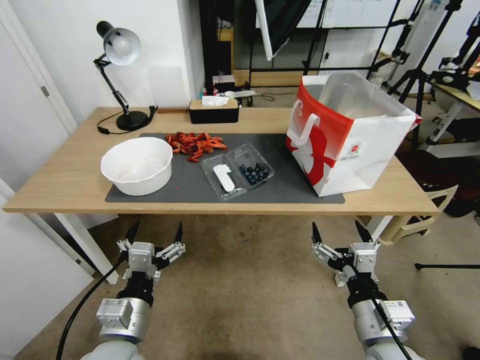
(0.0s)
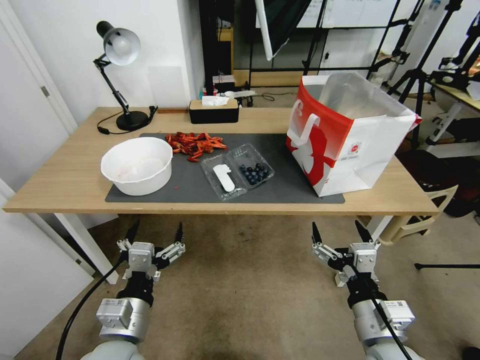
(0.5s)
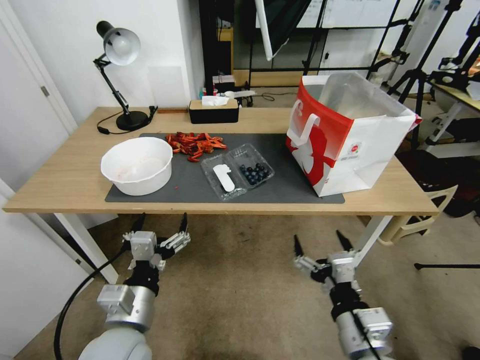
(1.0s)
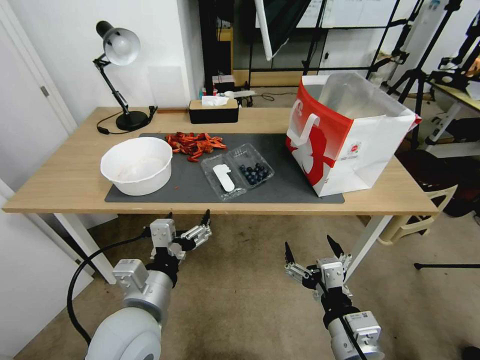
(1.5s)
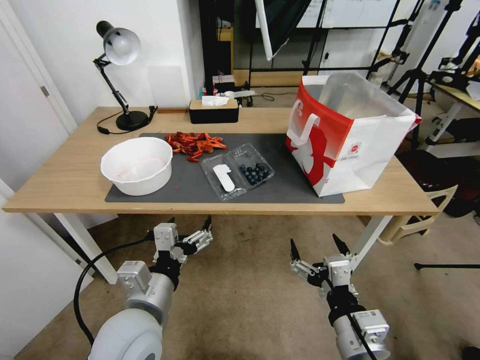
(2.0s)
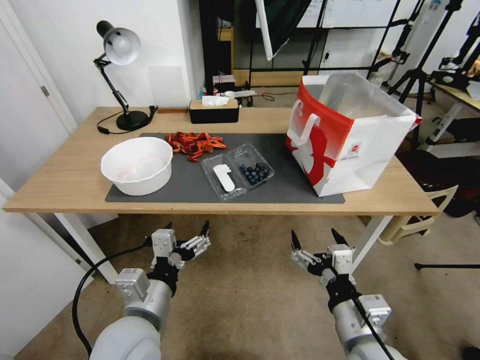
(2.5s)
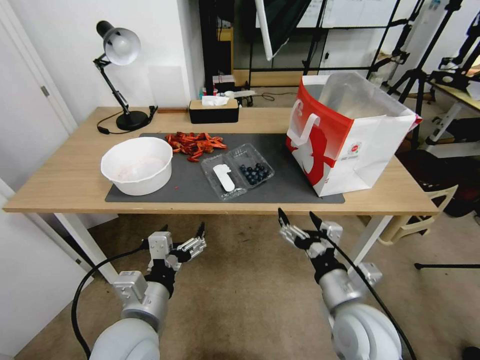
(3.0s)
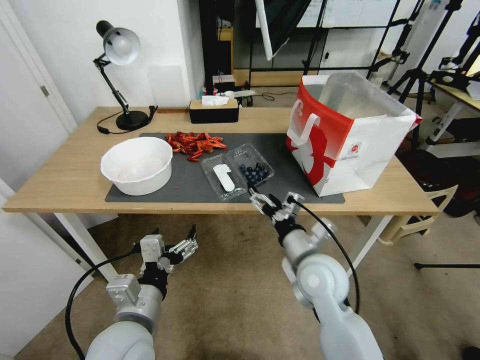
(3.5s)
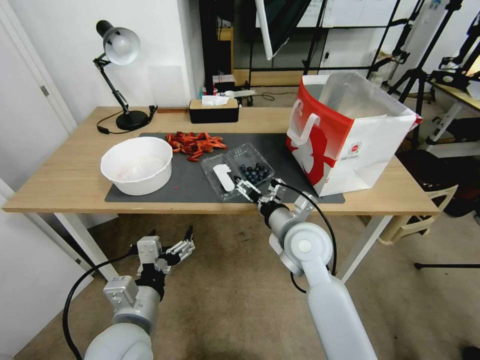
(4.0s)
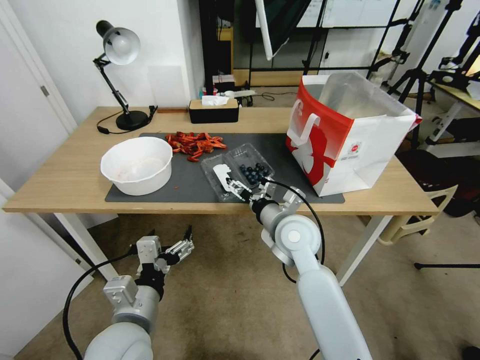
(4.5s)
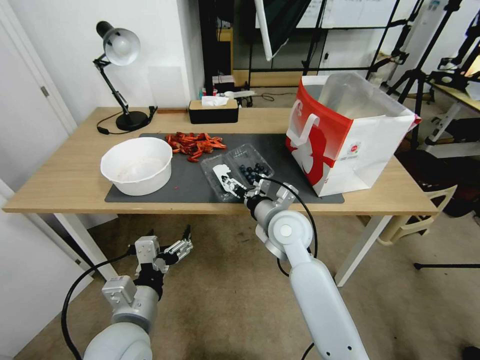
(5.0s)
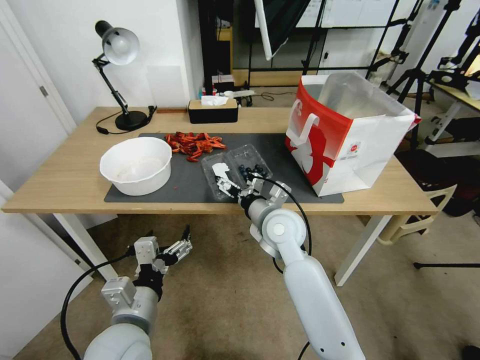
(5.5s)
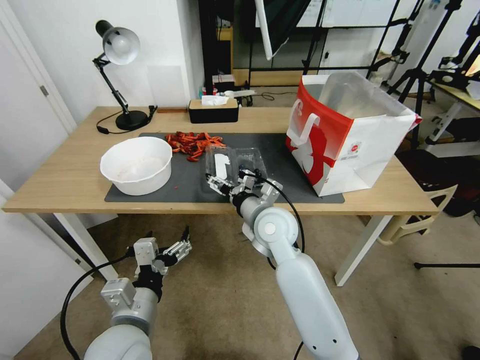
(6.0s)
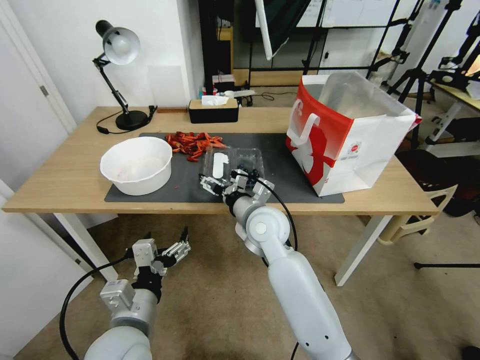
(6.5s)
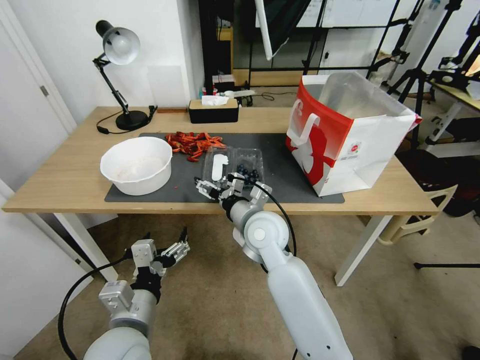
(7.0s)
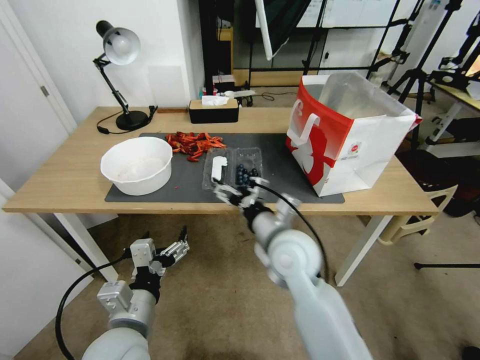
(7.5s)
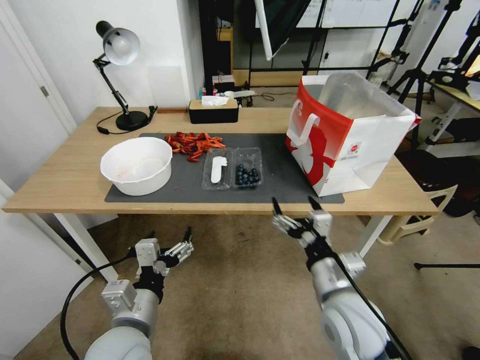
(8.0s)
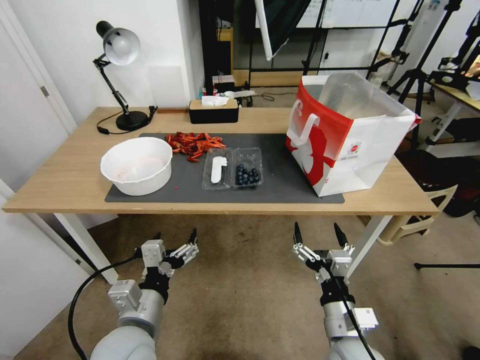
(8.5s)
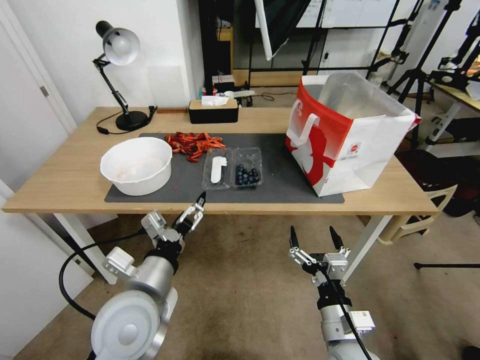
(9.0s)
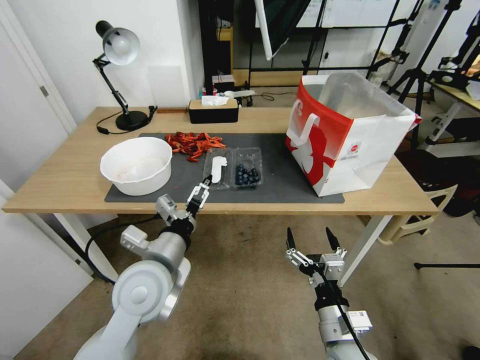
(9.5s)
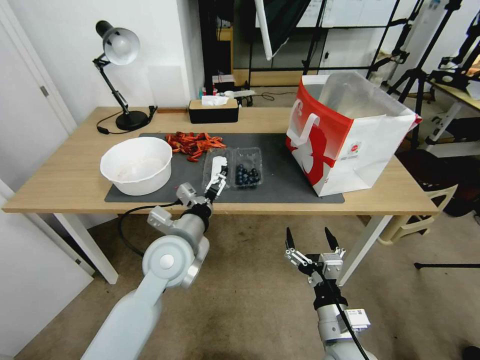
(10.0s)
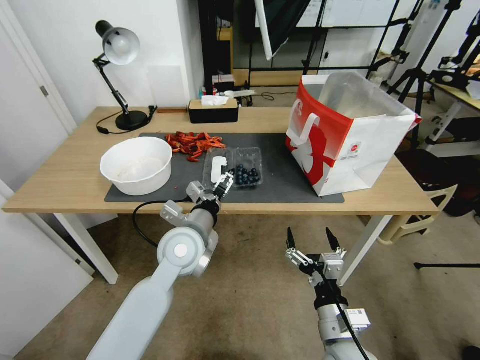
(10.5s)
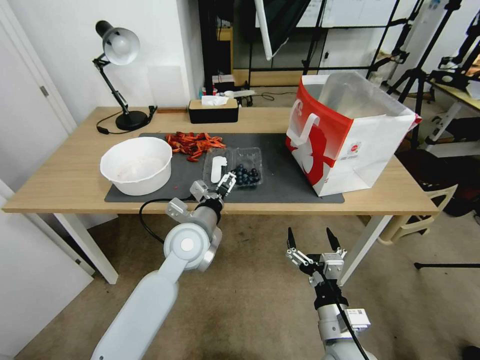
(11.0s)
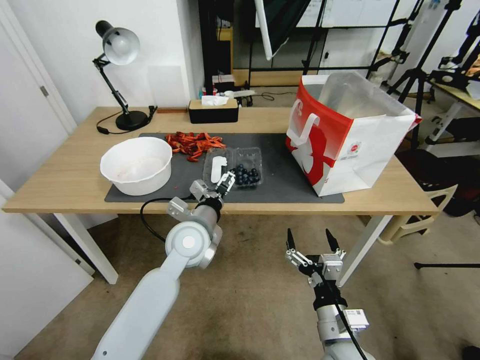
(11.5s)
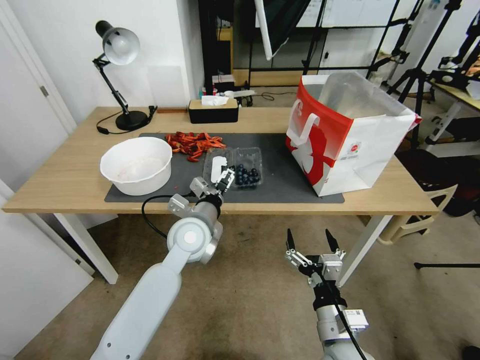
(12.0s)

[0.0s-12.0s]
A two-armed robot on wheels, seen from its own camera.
Task of the whole recording: Close the takeout container lid, then place the container into the takeout bag.
2.0s to 4.0s: The right gripper moves forward, approximately 20 cm.
4.0s to 6.0s: The right gripper moves to the left, about 5 cm.
6.0s to 8.0s: The right gripper is displaced backward and to the right by approximately 20 cm.
8.0s to 10.0s: The right gripper shifts approximately 10 cm downward and backward. Meanwhile the left gripper is displaced forward by roughly 15 cm.
10.0s to 12.0s: The left gripper goes about 5 cm forward.

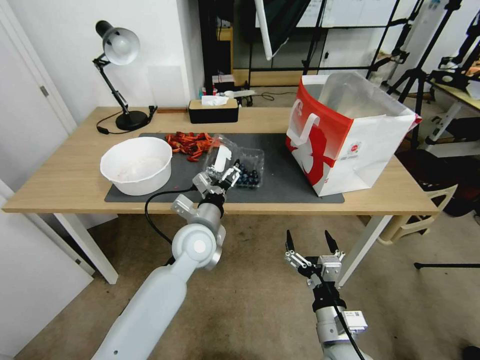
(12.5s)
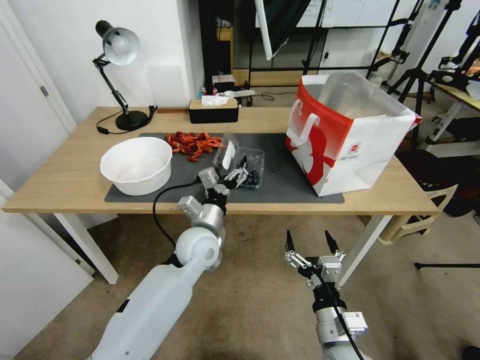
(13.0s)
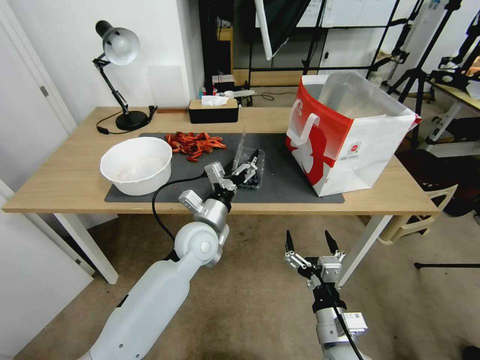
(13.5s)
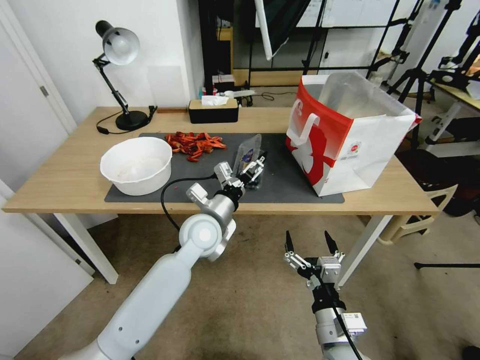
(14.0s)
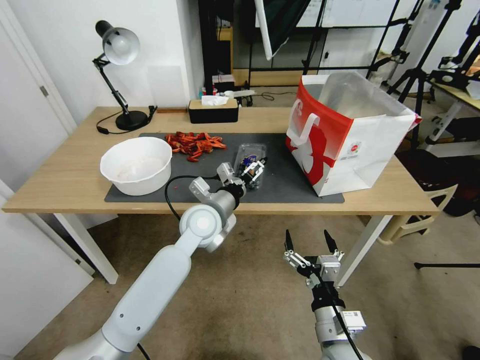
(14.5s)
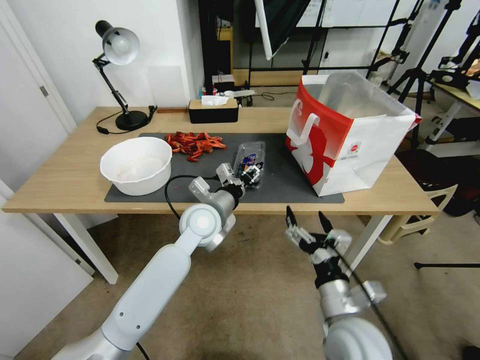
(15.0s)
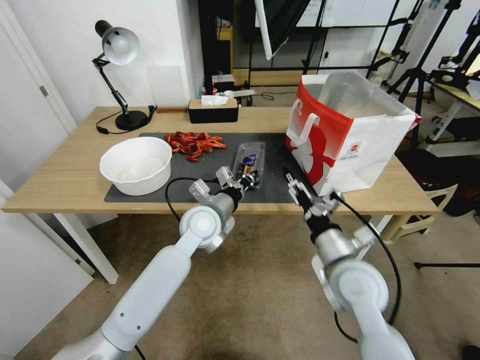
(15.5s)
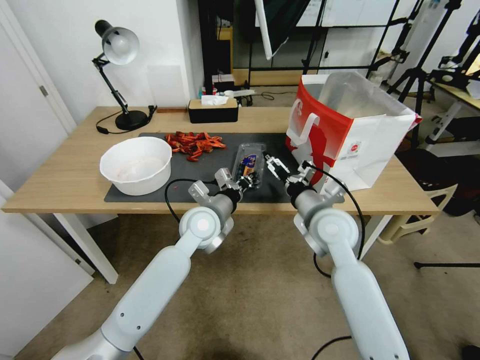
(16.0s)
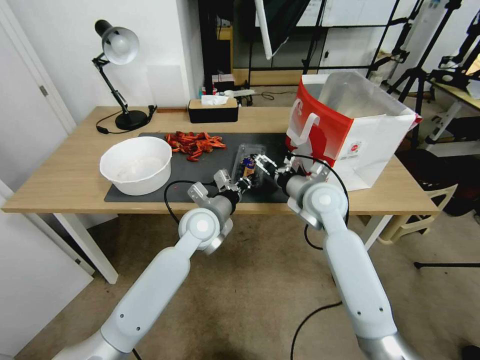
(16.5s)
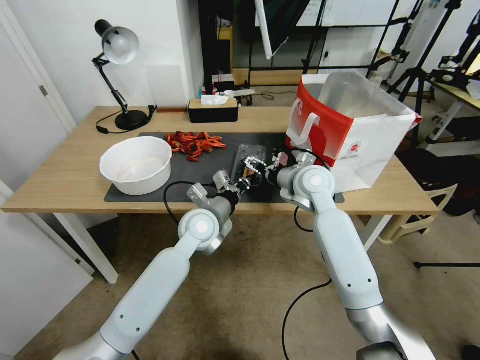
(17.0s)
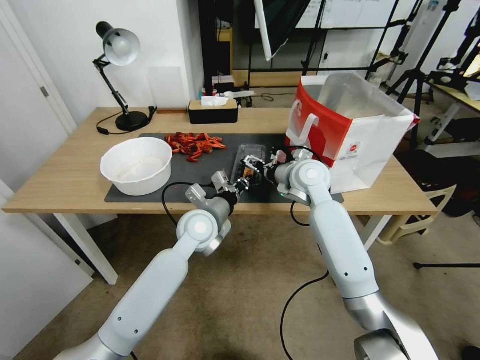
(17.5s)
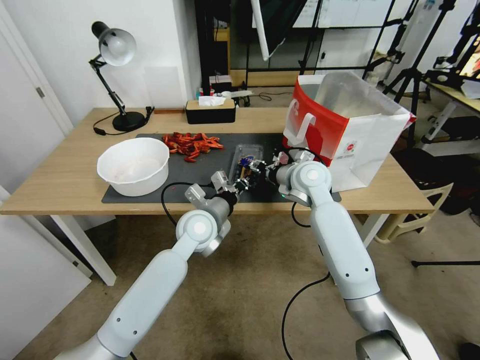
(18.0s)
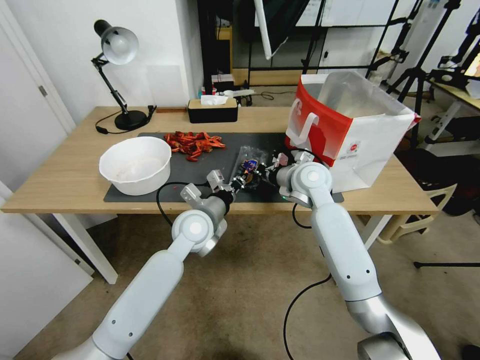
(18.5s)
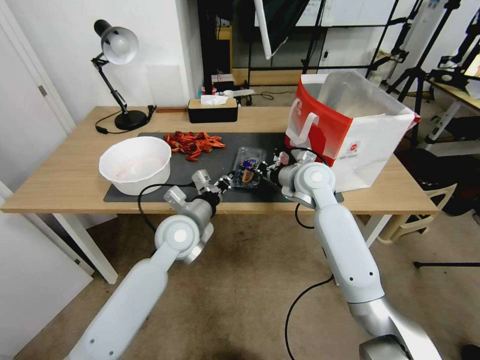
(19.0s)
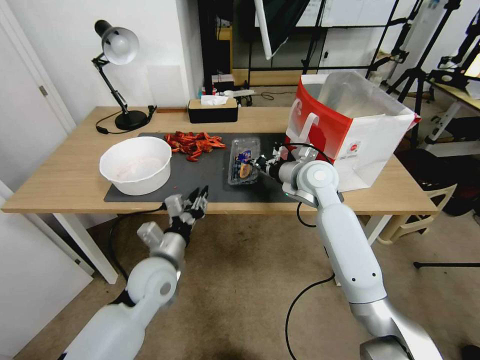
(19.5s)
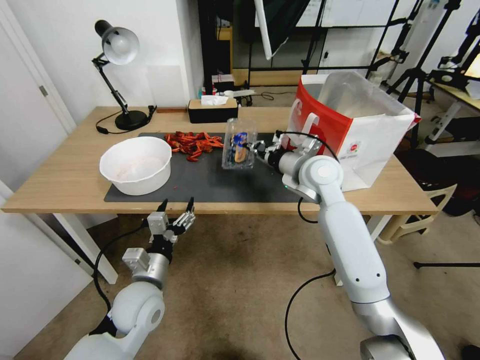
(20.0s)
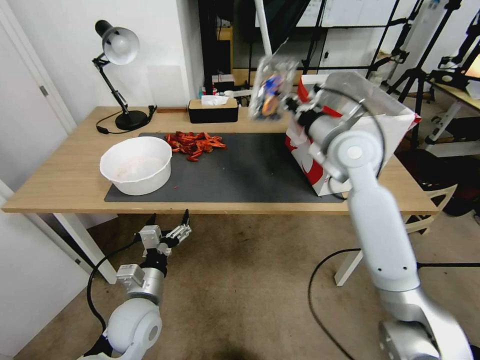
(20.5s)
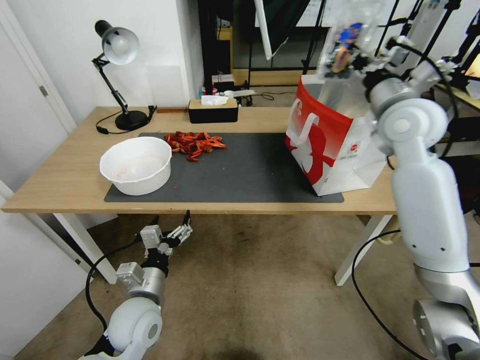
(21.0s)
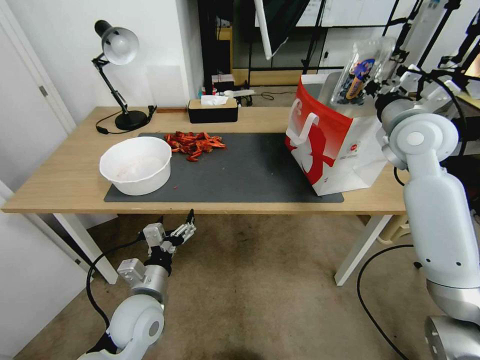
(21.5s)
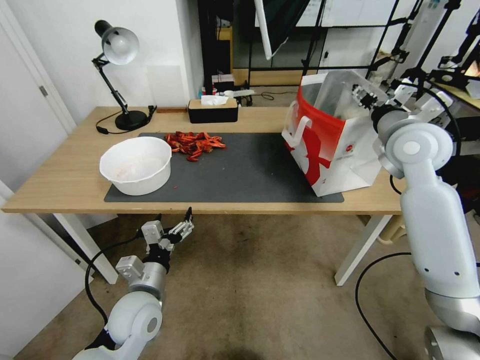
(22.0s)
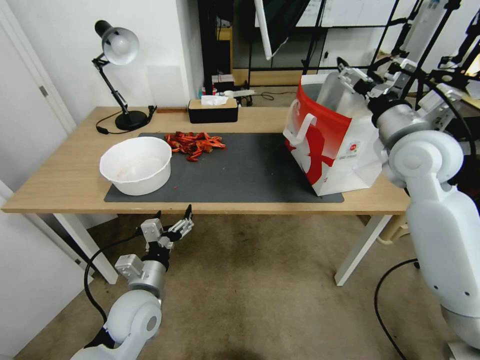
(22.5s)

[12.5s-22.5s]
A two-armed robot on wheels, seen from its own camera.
Task of the whole recording: Close the takeout container lid, then place the container into the takeout bag.
14.5s to 16.5s: The left gripper closes its fingers. The right gripper shifts roughly 30 cm forward and upward.
16.5s to 18.5s: The right gripper ends up some 5 cm from where it was, and closes.
18.5s to 20.5s: The right gripper shifts roughly 10 cm upward, while the left gripper heads backward, to the left and downward, covering approximately 20 cm, and opens its fingers.
20.5s to 22.5s: The right gripper is displaced to the right and upward by approximately 10 cm, and opens up.

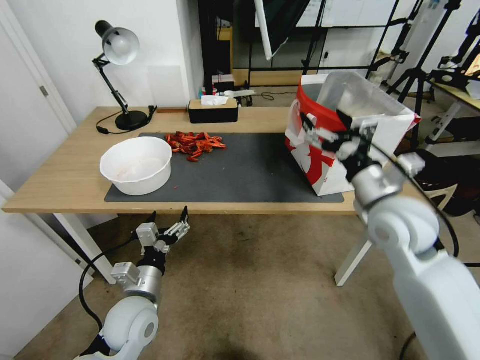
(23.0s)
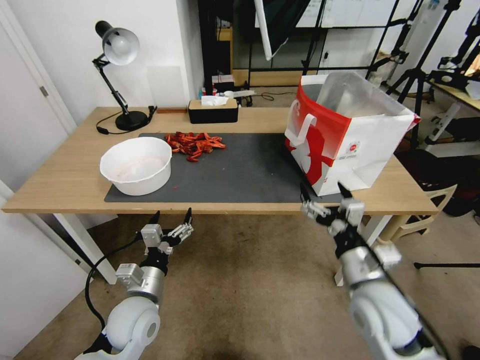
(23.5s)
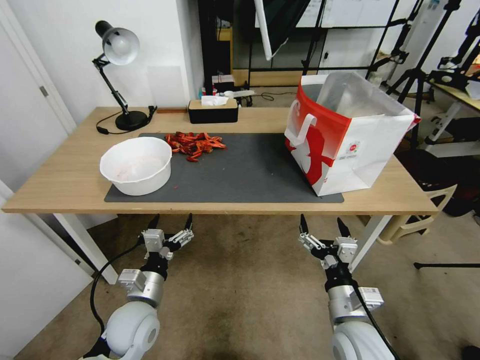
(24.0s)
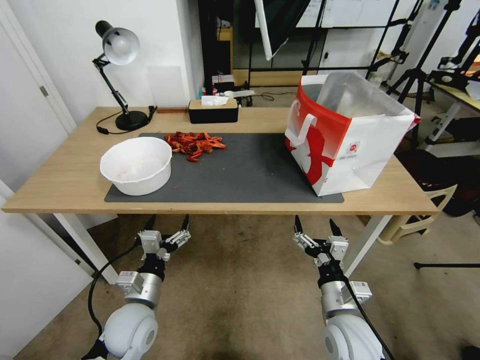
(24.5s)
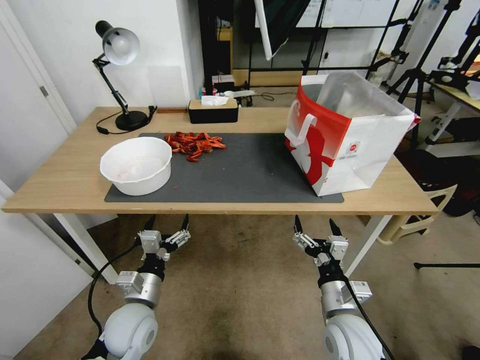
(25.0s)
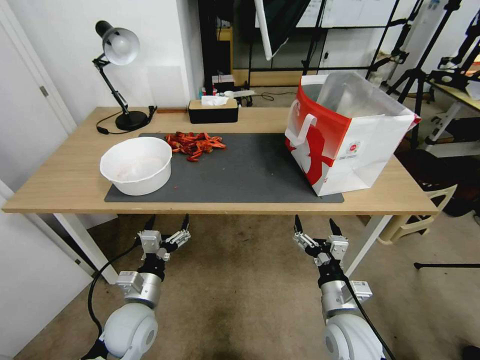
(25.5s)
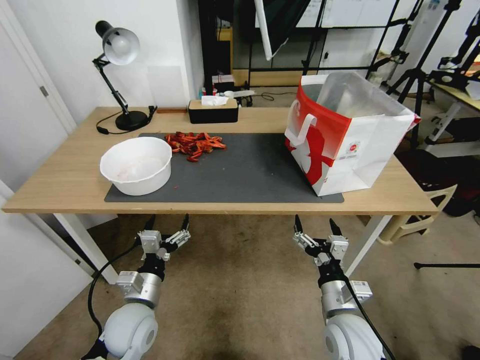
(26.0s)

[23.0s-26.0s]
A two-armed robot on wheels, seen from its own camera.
Task of the whole recording: Close the takeout container lid, then place the container into the takeout bag.
23.0s to 24.5s: The right gripper travels downward and backward by approximately 25 cm.
24.5s to 26.0s: Both grippers stay put.
